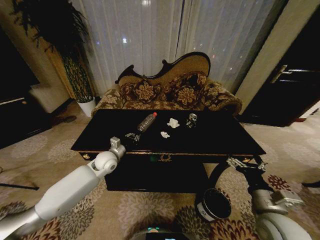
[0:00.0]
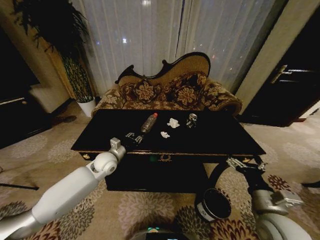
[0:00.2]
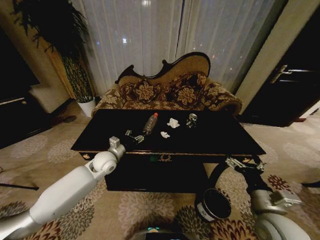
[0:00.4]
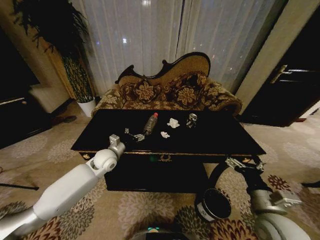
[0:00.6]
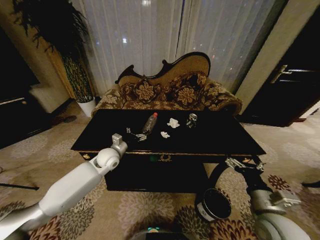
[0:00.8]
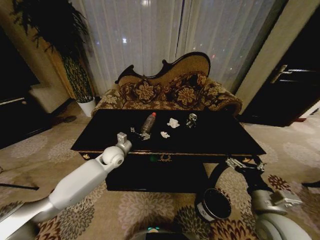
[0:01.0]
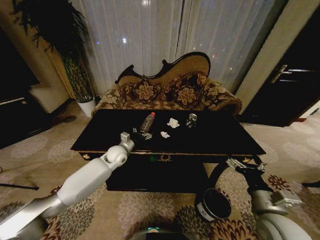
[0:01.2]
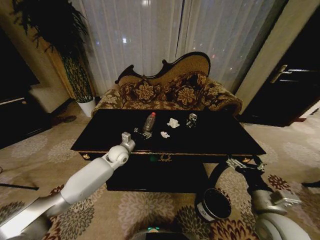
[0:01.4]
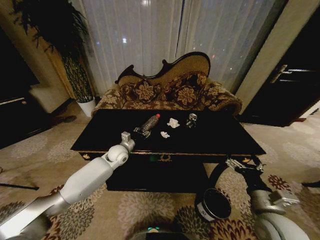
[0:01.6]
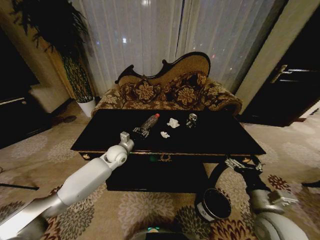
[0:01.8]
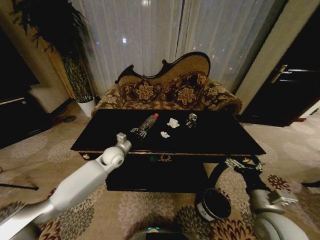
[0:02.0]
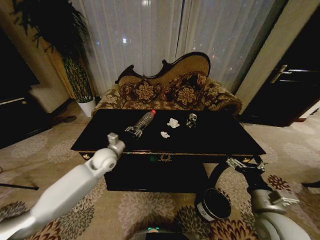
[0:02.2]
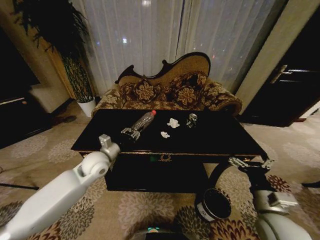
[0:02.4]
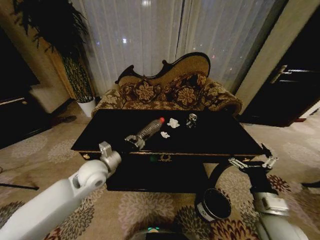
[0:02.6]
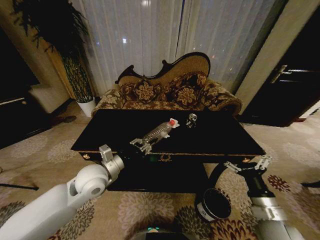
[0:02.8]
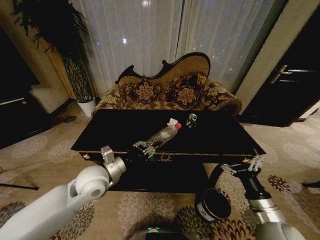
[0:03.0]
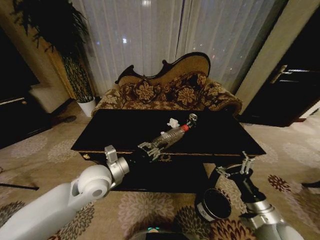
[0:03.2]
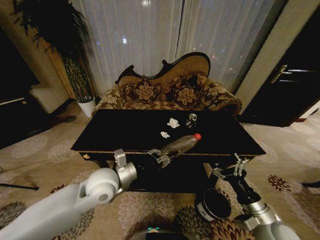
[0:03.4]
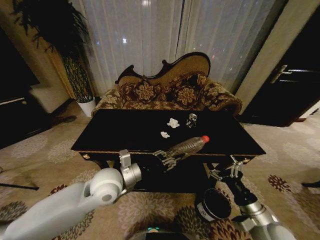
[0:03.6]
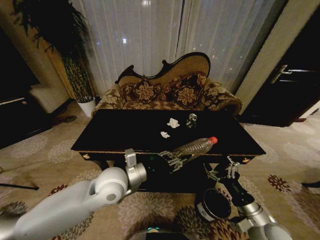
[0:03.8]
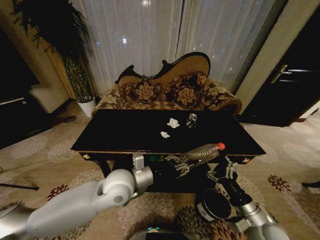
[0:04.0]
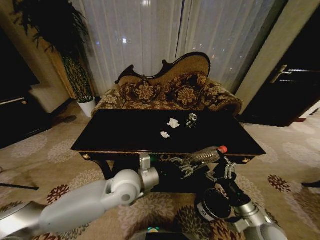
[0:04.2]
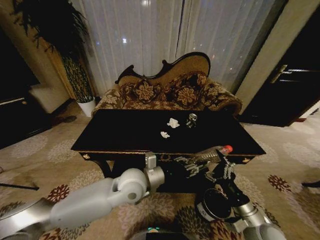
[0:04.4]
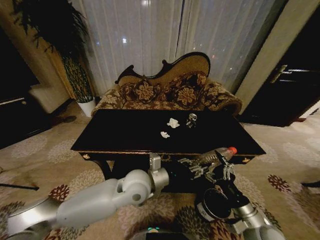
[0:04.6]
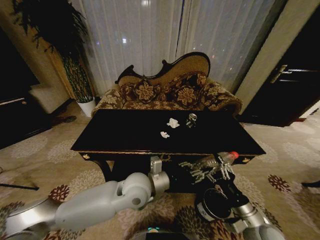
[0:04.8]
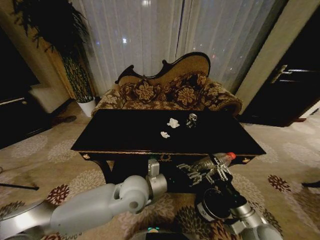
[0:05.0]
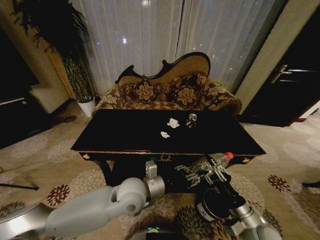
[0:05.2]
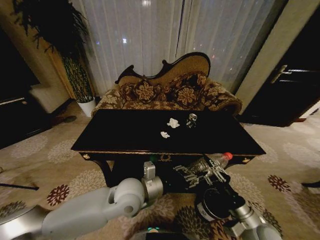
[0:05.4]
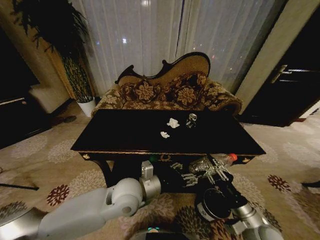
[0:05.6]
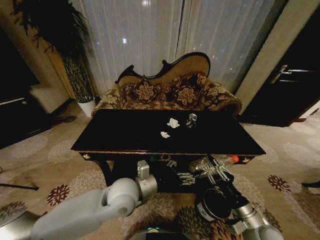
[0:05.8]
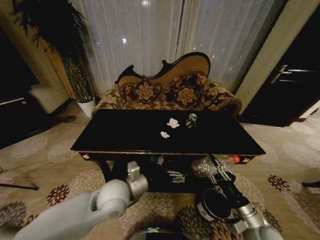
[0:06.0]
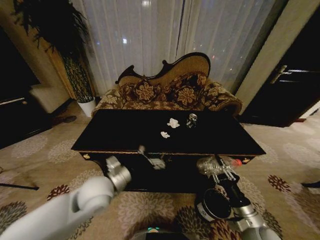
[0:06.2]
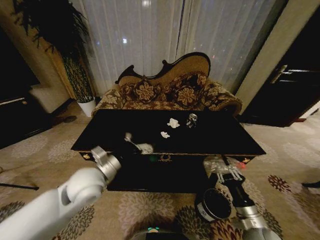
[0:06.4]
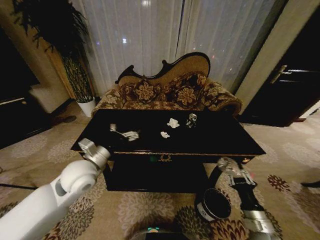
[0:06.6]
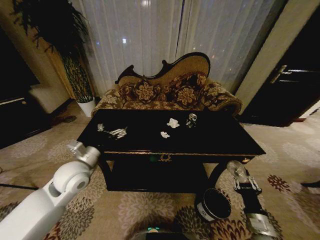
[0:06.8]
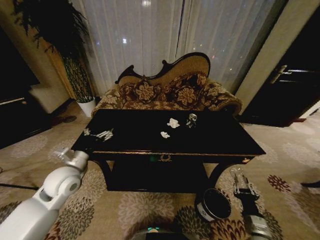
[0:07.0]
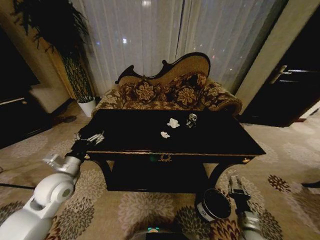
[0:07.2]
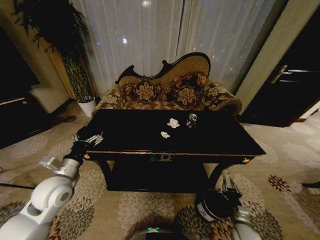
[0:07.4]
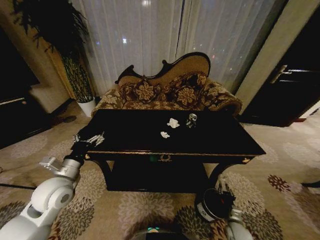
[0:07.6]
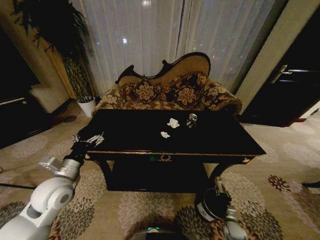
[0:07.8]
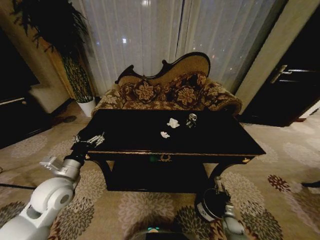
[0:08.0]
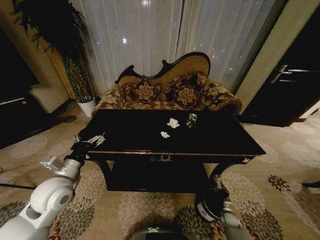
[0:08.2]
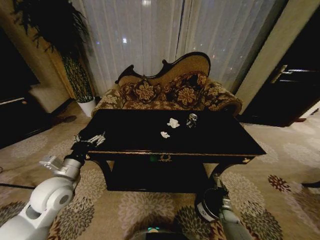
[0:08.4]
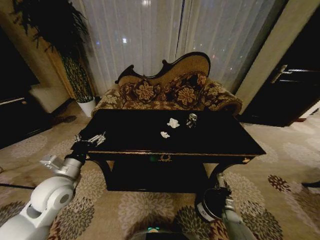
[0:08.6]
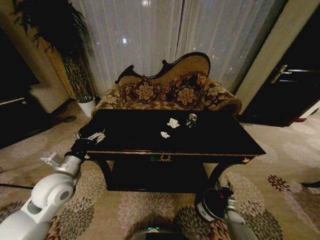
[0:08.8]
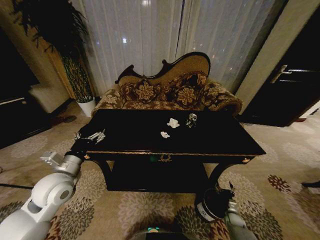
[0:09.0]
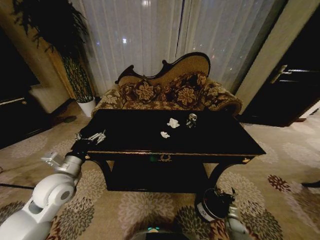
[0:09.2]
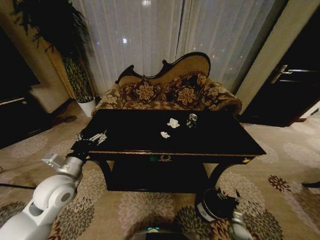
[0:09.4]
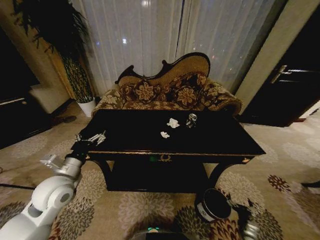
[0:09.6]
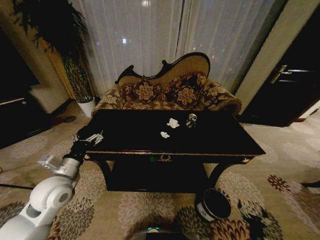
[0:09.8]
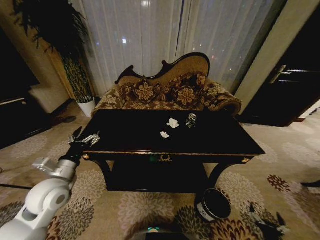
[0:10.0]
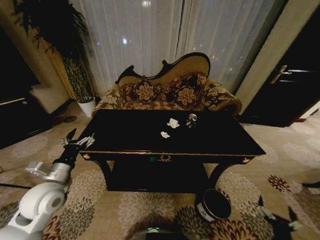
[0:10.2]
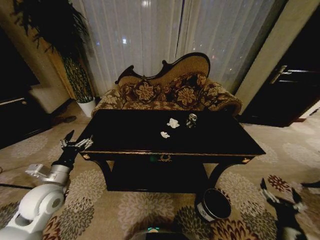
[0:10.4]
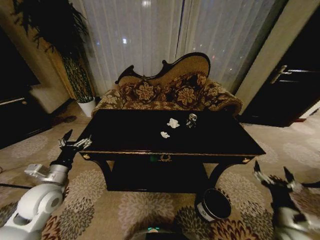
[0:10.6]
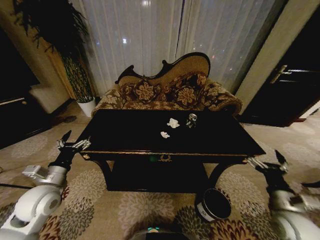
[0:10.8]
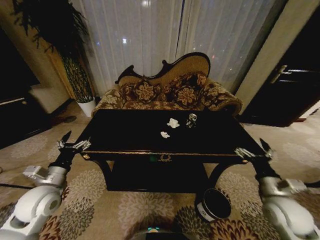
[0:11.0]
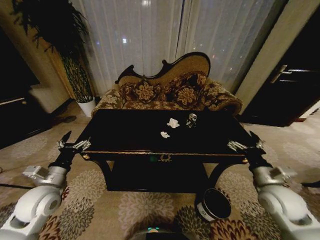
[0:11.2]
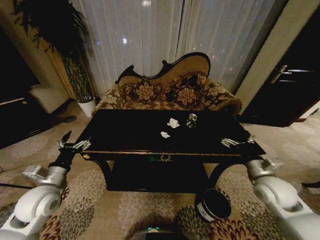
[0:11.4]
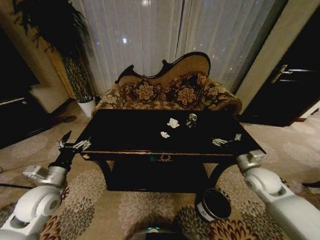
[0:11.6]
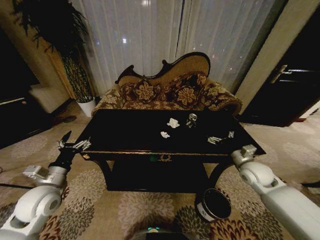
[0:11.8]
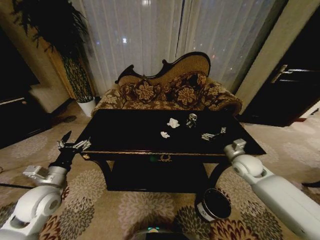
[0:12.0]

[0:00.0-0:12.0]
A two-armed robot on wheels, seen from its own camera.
Task of the whole recording: Move to the front of the table and place the trash on the table into the trash bin.
0:00.0 to 0:01.6: The left gripper shifts by roughly 5 cm, and opens.
0:01.6 to 0:03.0: The left gripper goes approximately 20 cm backward and upward, and closes.
0:03.0 to 0:04.4: The left gripper shifts approximately 15 cm to the right.
0:04.4 to 0:06.0: The right gripper closes its fingers. The left gripper travels to the left by approximately 5 cm, and opens its fingers.
0:06.0 to 0:07.6: The left gripper shifts some 20 cm to the left; the right gripper moves downward, about 20 cm.
0:07.6 to 0:09.0: The right gripper is displaced downward, to the right and forward by some 15 cm, and opens.
0:09.0 to 0:10.4: The right gripper goes about 30 cm upward and backward, while the left gripper changes place by roughly 5 cm.
0:10.4 to 0:12.0: The right gripper moves forward and upward, roughly 30 cm.

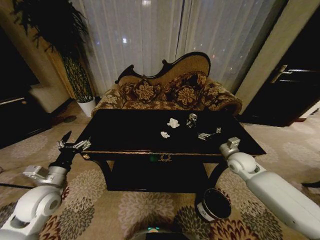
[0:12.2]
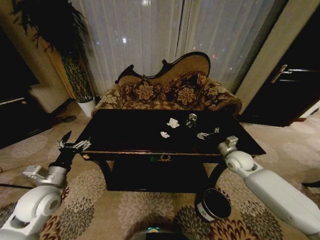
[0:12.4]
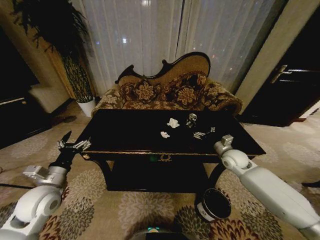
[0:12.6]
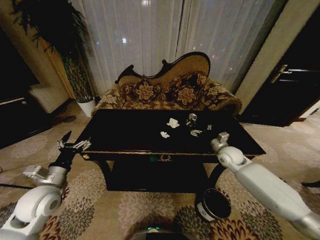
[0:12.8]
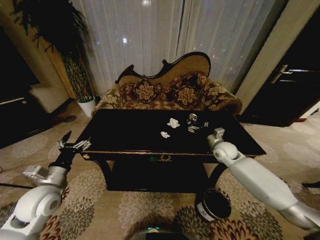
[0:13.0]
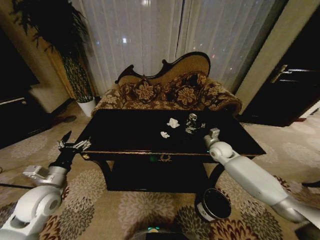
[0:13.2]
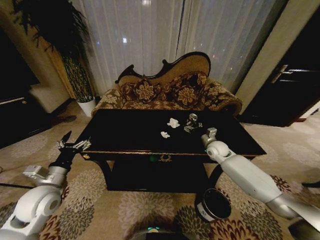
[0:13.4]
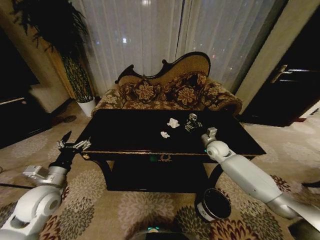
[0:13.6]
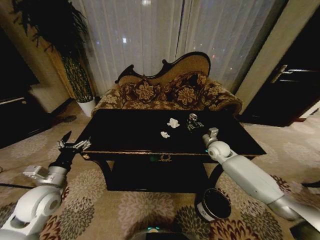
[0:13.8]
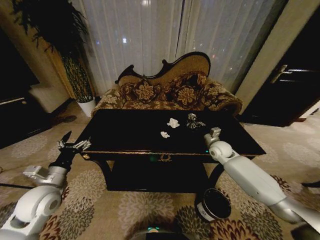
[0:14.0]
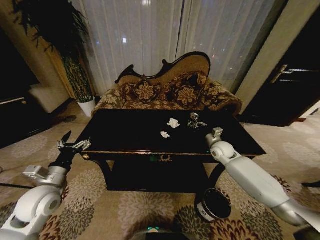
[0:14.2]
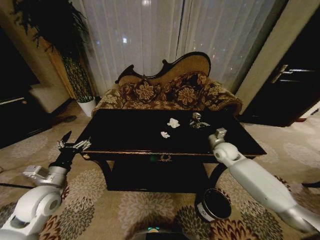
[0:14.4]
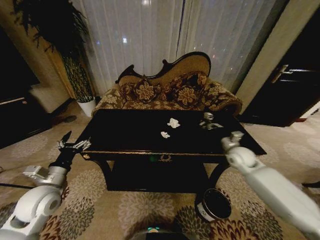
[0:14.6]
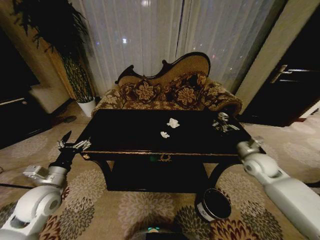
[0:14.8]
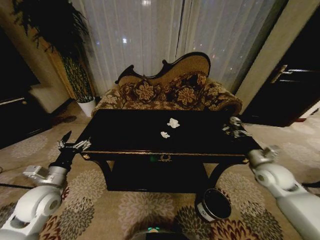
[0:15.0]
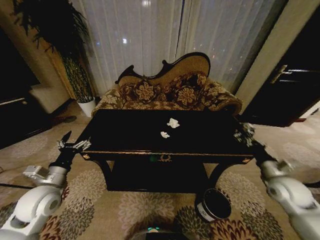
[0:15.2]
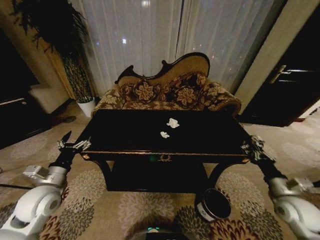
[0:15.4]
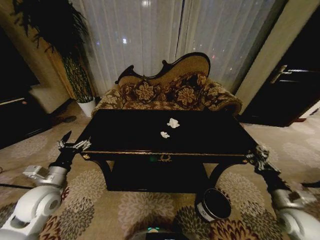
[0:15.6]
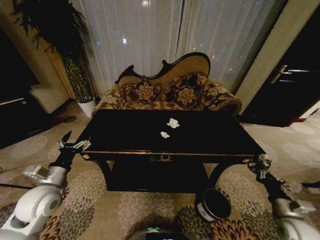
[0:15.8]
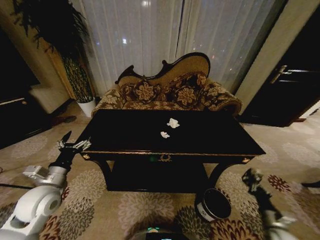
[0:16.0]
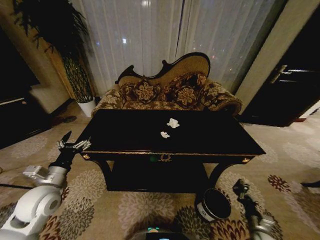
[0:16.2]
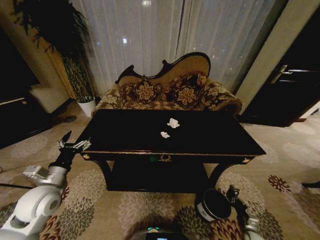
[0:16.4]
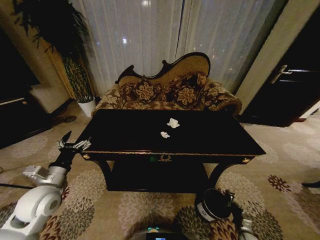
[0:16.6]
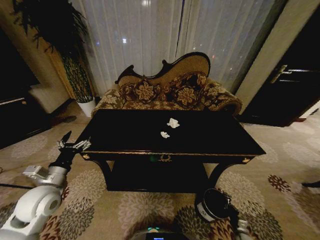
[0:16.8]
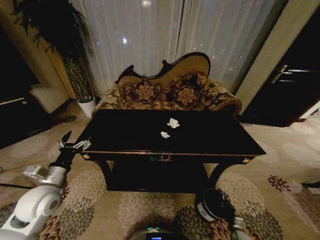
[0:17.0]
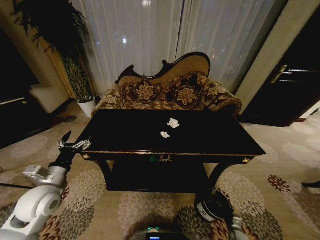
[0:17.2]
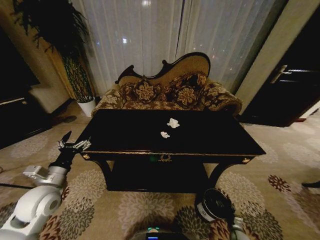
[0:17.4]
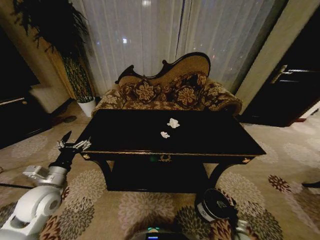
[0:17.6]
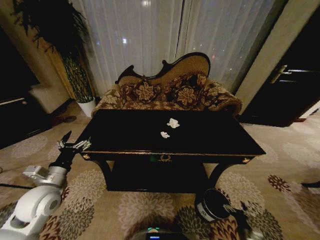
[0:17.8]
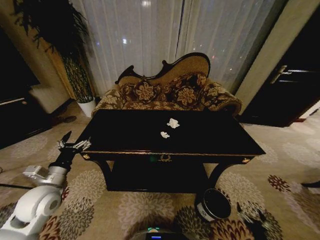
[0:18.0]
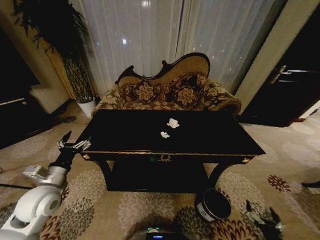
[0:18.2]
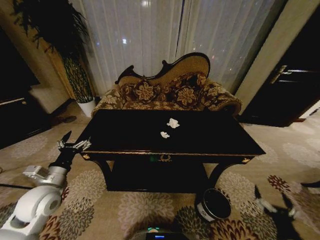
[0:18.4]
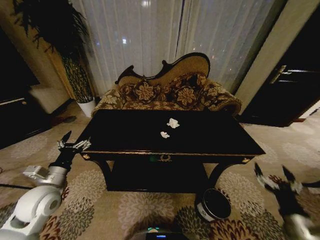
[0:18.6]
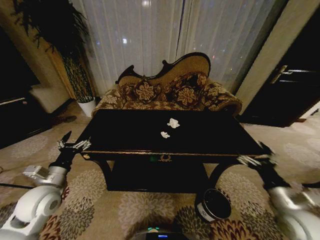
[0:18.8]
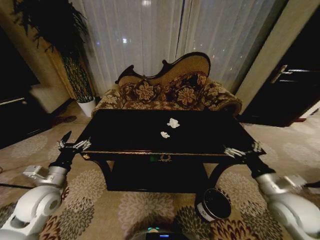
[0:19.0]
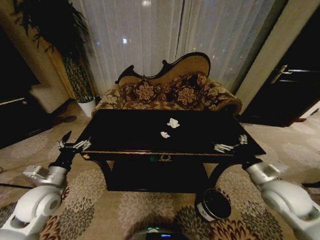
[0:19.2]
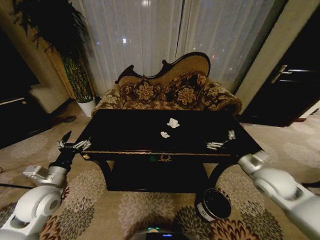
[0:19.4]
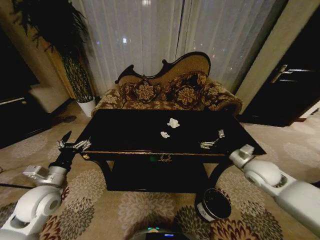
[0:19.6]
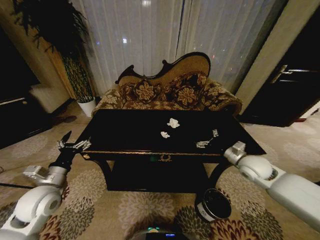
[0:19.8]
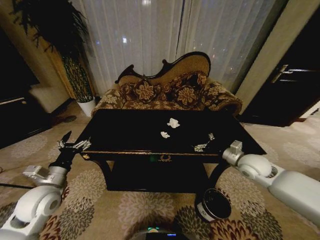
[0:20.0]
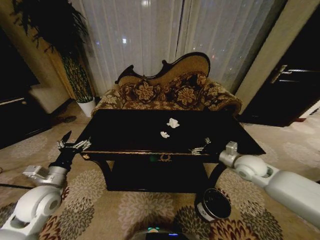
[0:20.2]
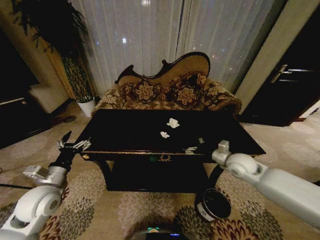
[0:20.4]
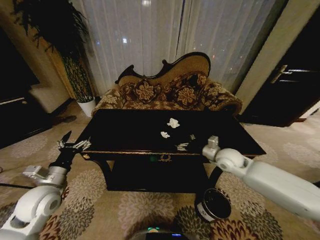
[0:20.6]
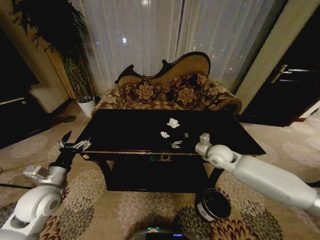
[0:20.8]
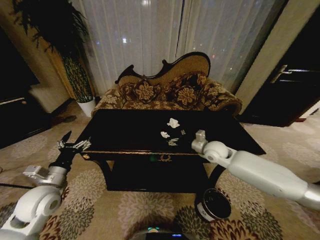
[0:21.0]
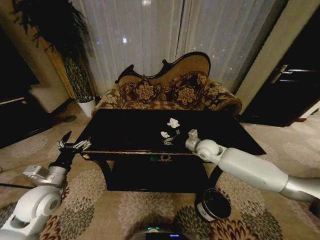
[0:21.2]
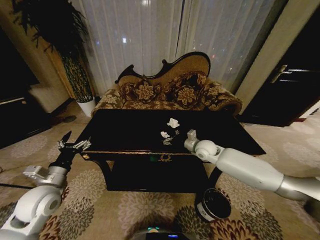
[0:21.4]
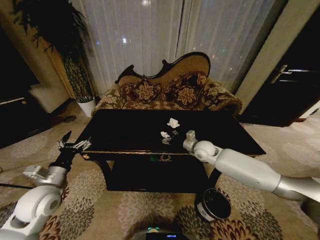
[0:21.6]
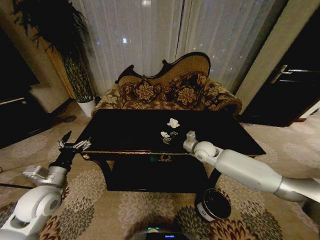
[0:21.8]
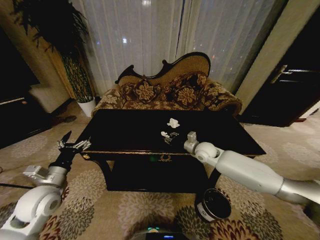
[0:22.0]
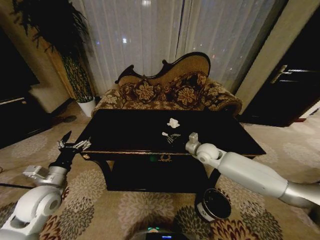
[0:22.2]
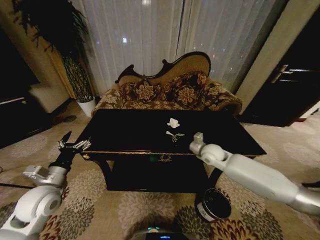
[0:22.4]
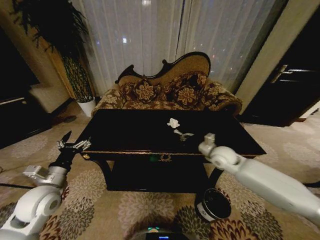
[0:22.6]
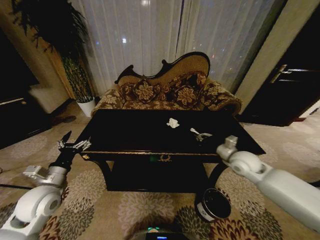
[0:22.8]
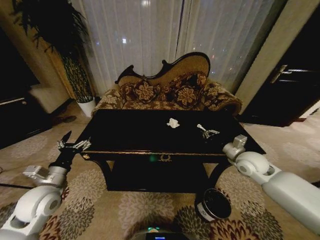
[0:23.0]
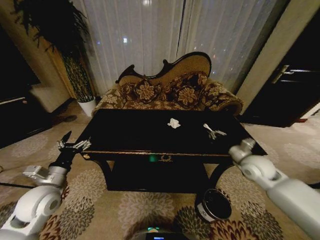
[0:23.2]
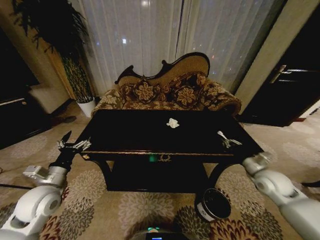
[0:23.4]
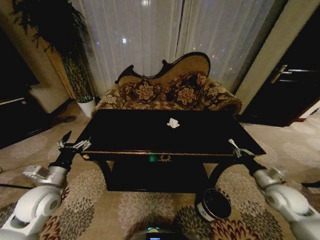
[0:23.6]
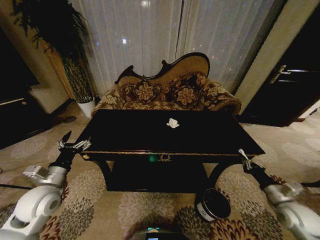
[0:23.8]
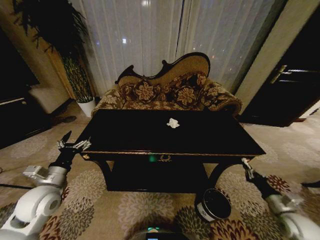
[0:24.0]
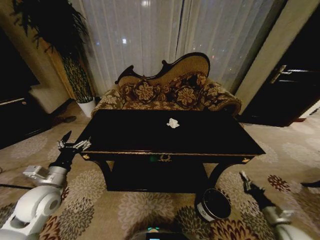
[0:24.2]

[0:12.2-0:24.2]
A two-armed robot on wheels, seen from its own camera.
Task of the whole recording: Move to the front of the table and place the trash on the table into the trash bin.
0:12.2 to 0:13.8: The right gripper heads forward and to the left, covering about 10 cm, and closes up.
0:13.8 to 0:15.2: The right gripper moves backward and to the right, approximately 25 cm, and closes its fingers.
0:15.2 to 0:16.6: The right gripper moves downward, some 35 cm.
0:16.6 to 0:18.2: The right gripper moves upward and backward, about 20 cm, and opens up.
0:18.2 to 0:19.8: The right gripper heads forward and upward, covering approximately 40 cm.
0:19.8 to 0:21.2: The right gripper moves to the left and forward, about 15 cm.
0:21.2 to 0:22.6: The right gripper goes approximately 5 cm to the right, and closes up.
0:22.6 to 0:24.2: The right gripper moves backward, to the right and downward, about 35 cm.
